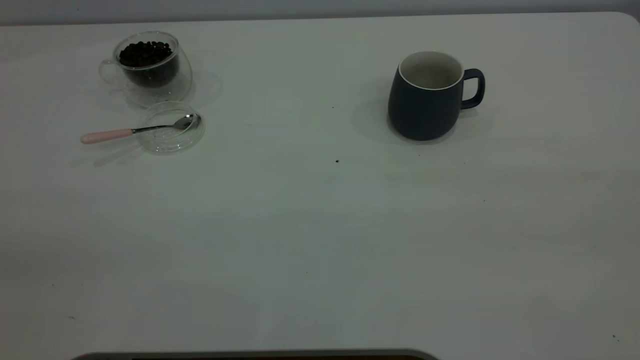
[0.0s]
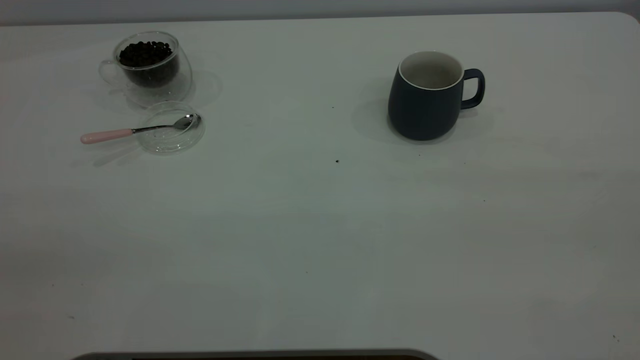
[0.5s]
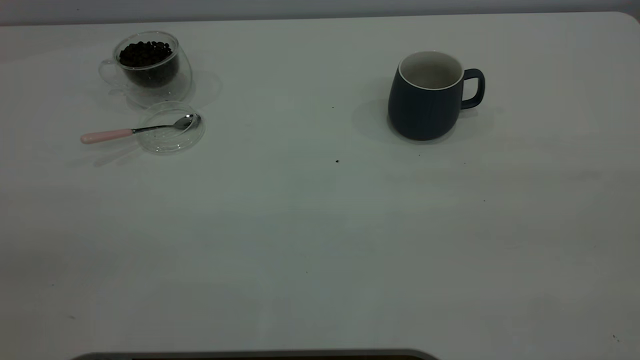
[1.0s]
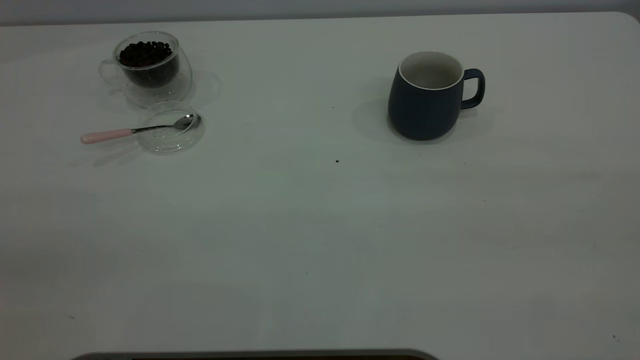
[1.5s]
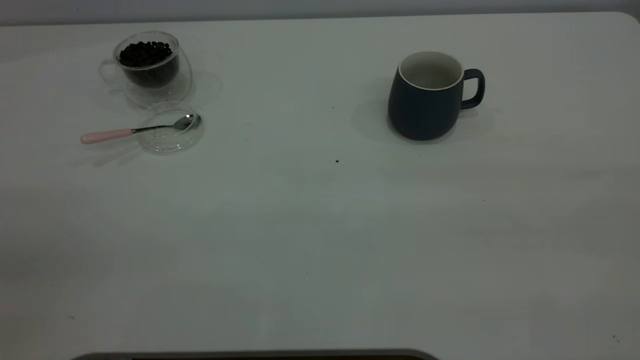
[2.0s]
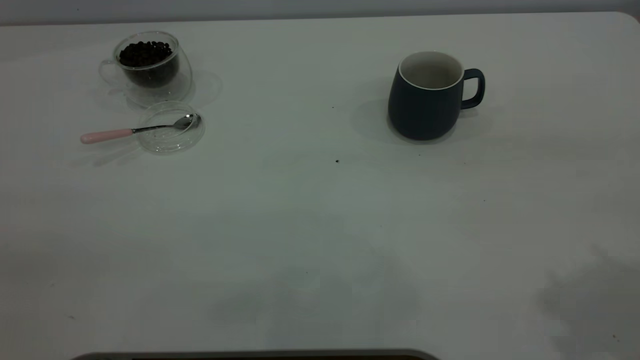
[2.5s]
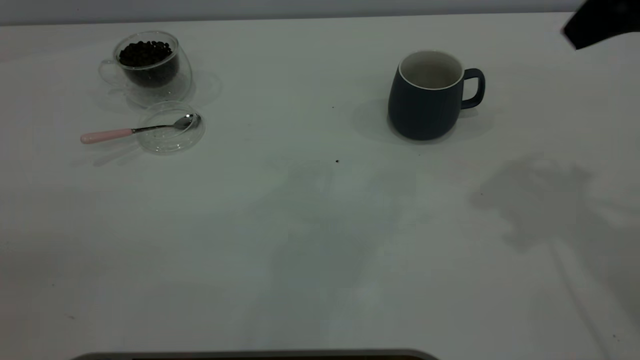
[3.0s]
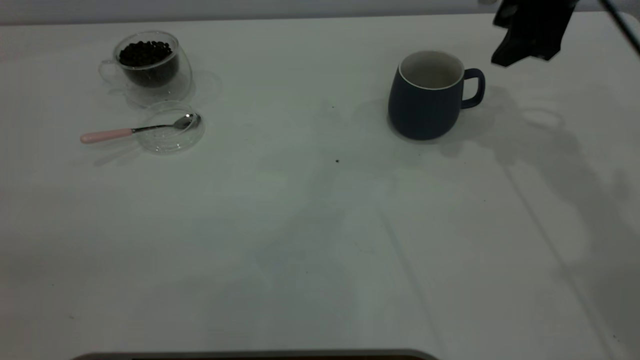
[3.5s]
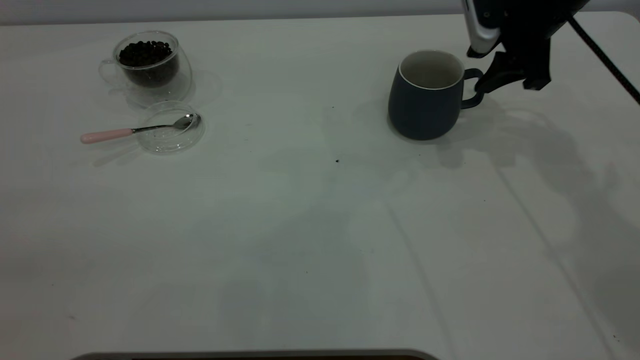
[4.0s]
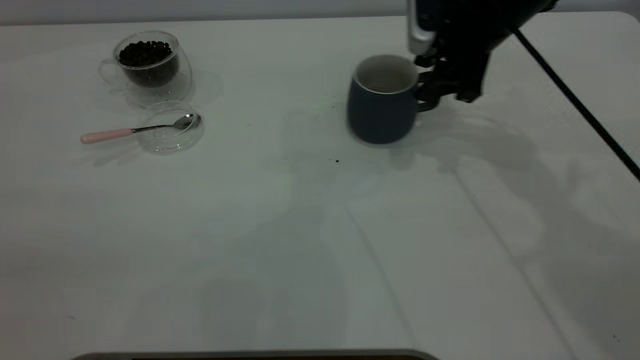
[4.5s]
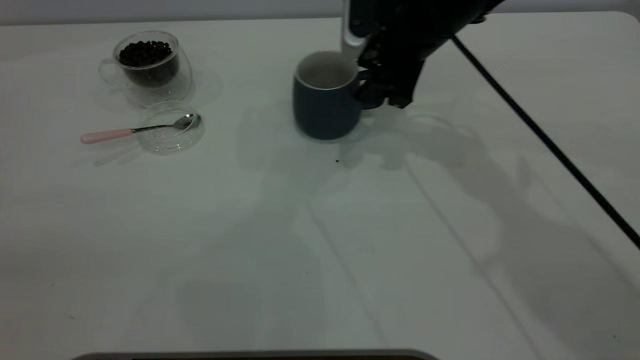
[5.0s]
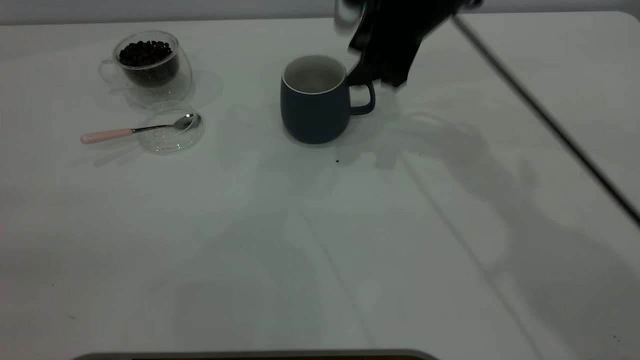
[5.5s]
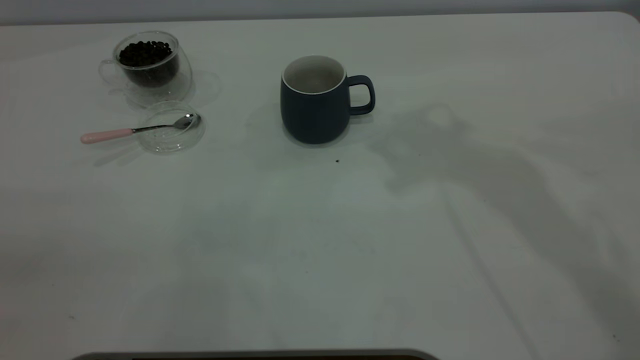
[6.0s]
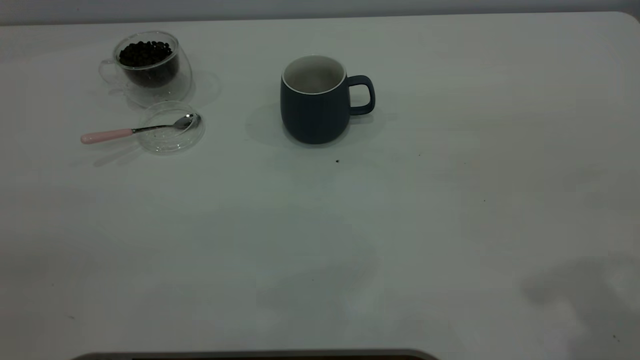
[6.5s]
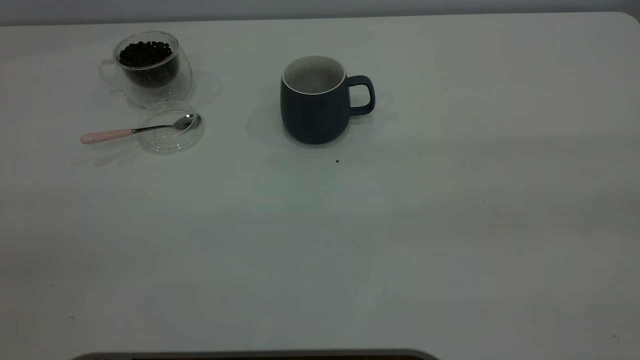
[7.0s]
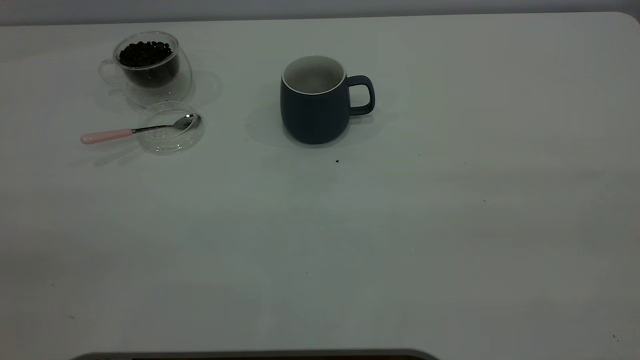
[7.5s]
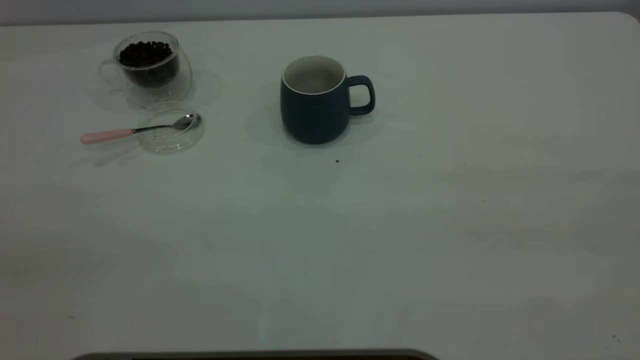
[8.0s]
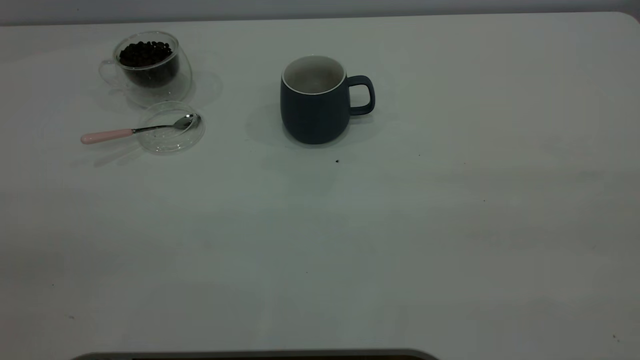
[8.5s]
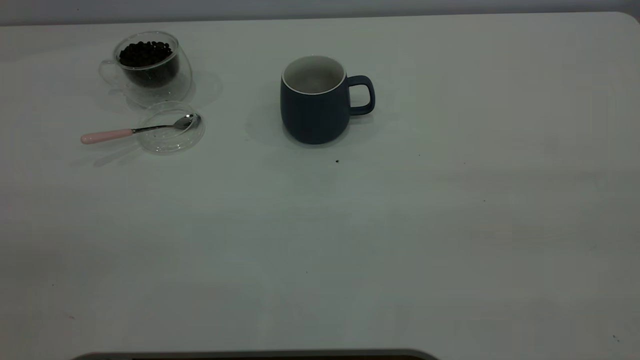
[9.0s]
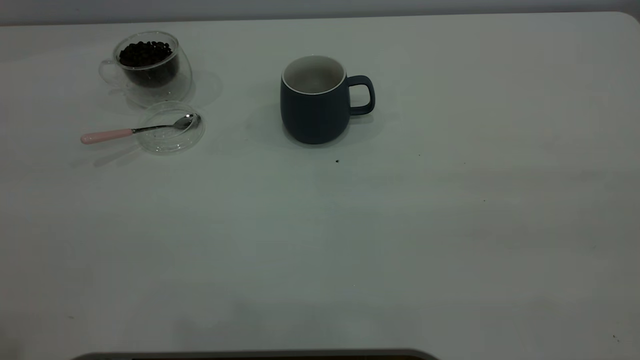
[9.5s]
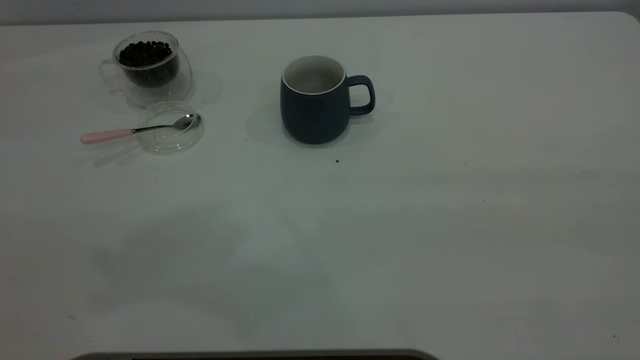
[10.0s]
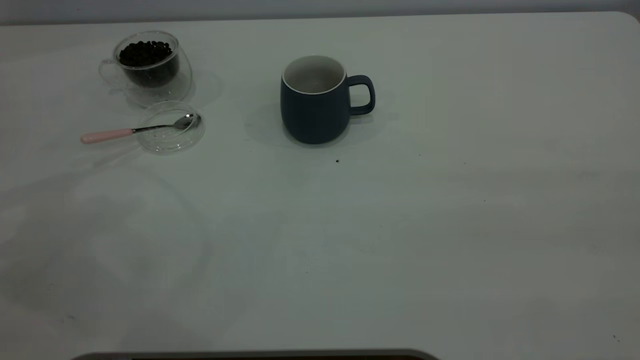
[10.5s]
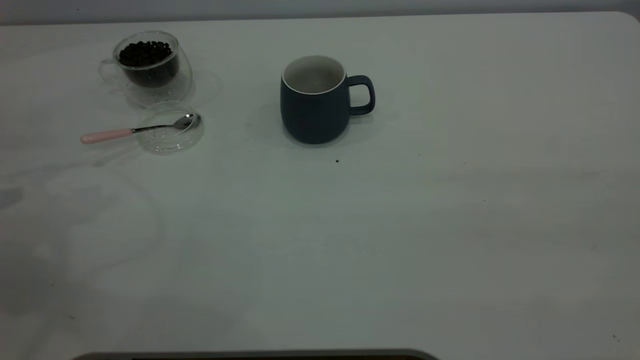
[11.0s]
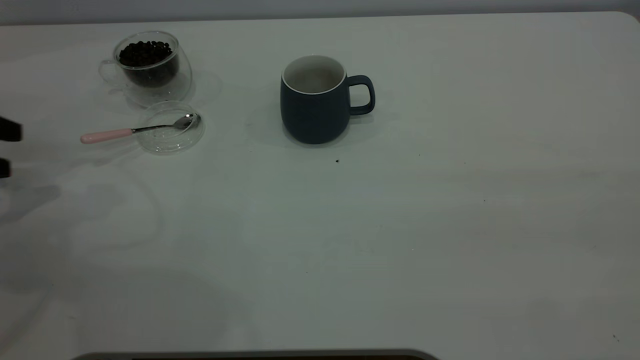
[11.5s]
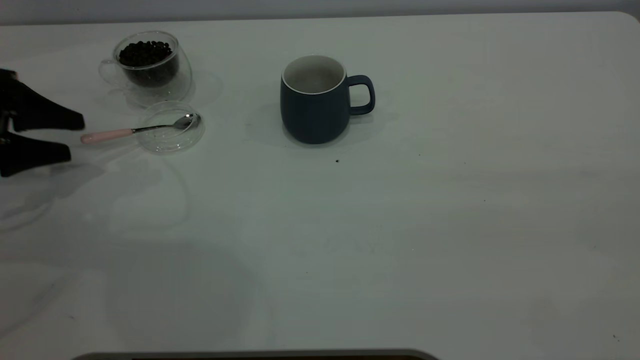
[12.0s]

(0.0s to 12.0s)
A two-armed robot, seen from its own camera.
Task of the whole recording: the right gripper place the grey cup in the center of the table, the left gripper take the pink spoon from the cup lid and scoop out the coffee beans from the coffee cup and put them into the grey cup, the left gripper put the spoon back into the cup lid.
Step, 0.0s - 5.5s: Move the cup to the center of view.
2.0s - 4.0s: The right gripper travels forward and downward by approximately 50 cm, and opens.
4.0s - 6.0s: The right gripper travels upward and backward by roughly 20 cm.
10.0s - 12.0s: The left gripper goes roughly 30 cm downward.

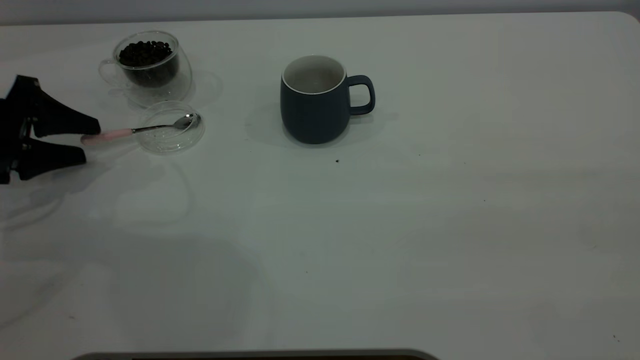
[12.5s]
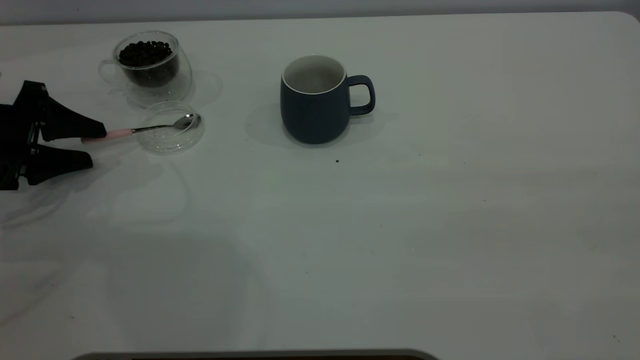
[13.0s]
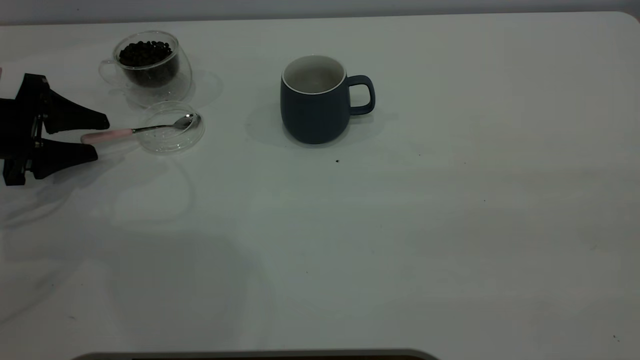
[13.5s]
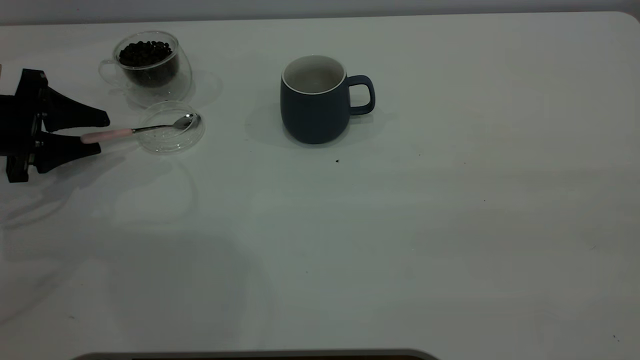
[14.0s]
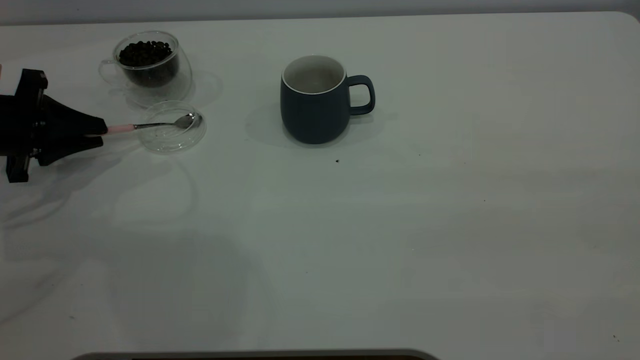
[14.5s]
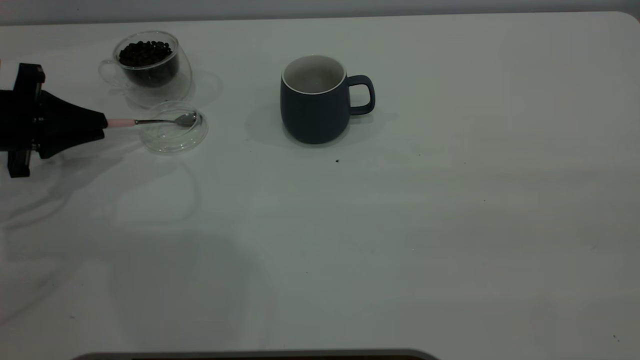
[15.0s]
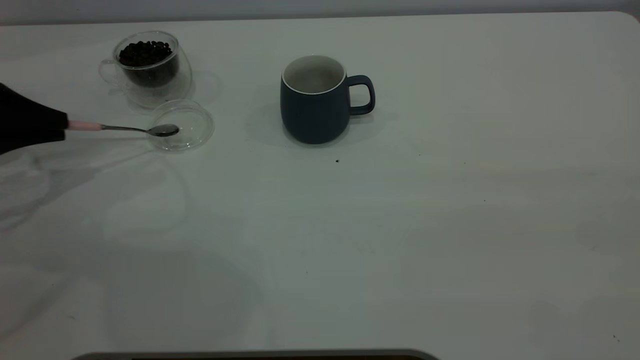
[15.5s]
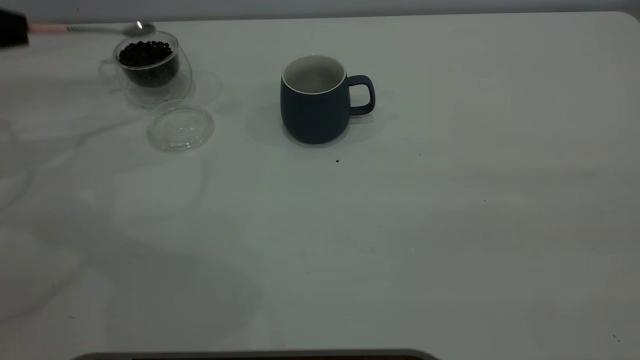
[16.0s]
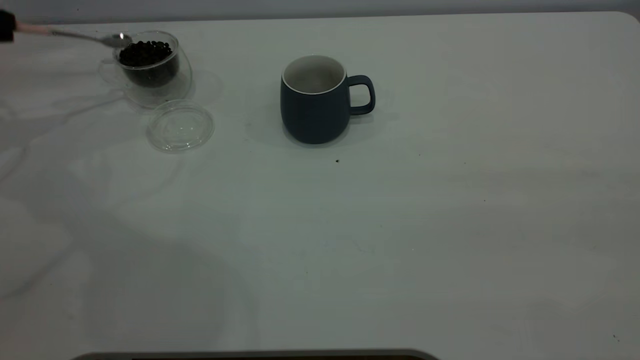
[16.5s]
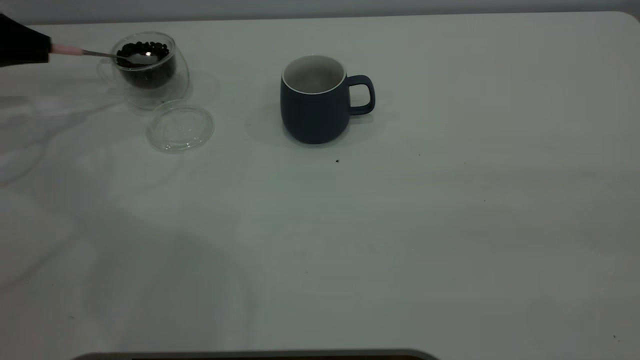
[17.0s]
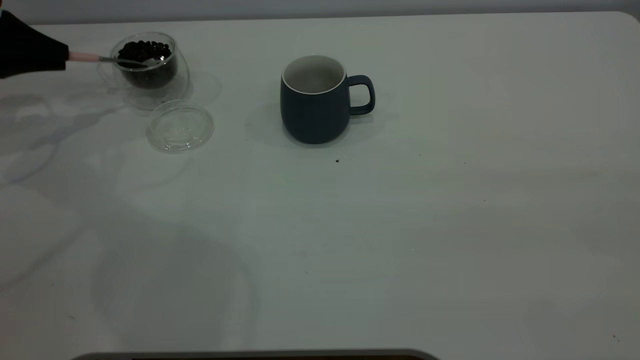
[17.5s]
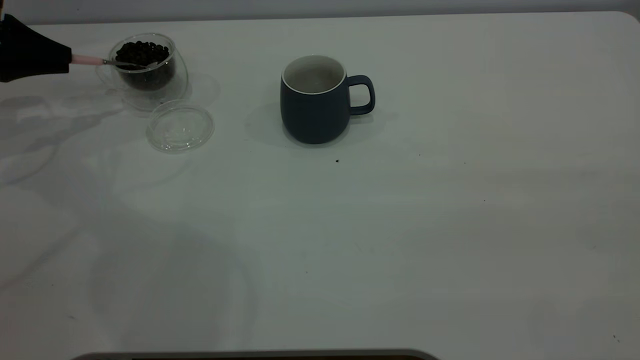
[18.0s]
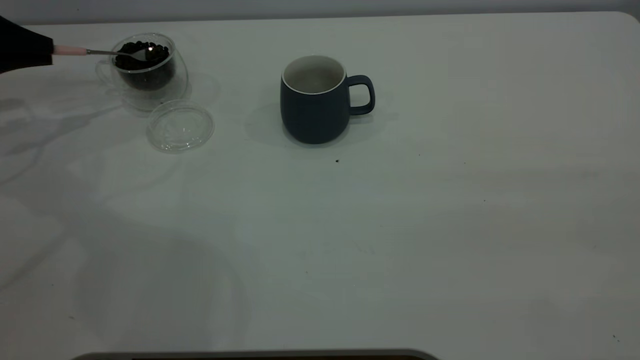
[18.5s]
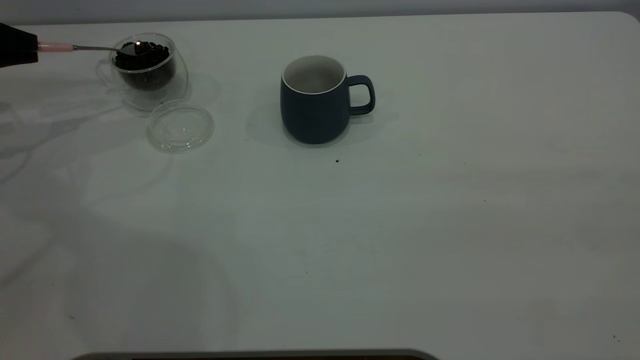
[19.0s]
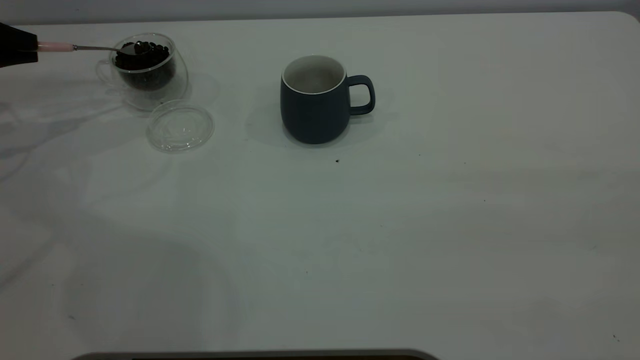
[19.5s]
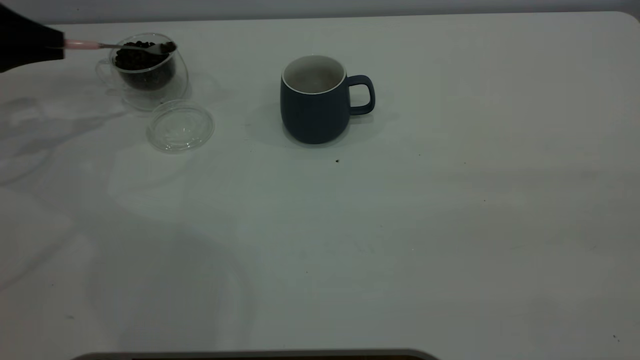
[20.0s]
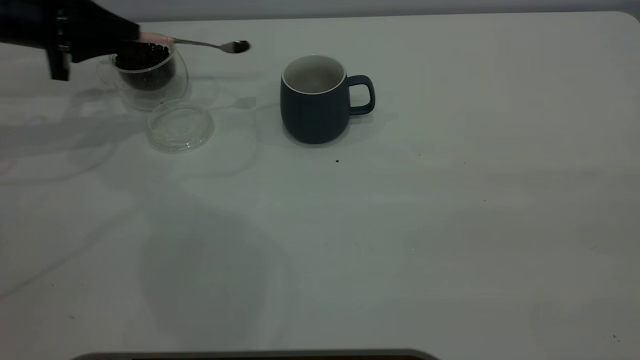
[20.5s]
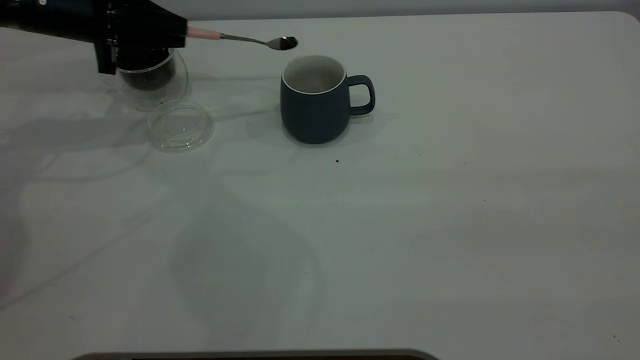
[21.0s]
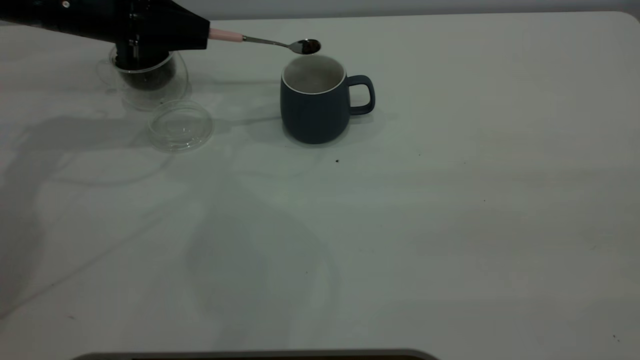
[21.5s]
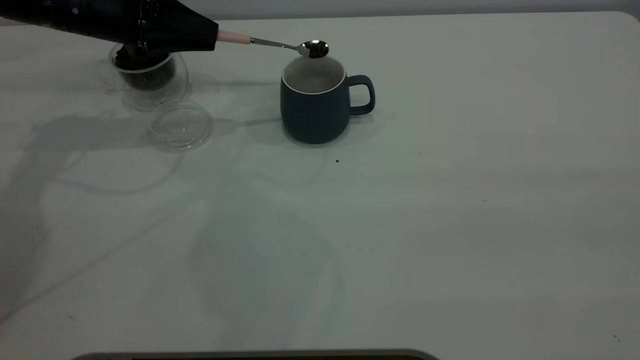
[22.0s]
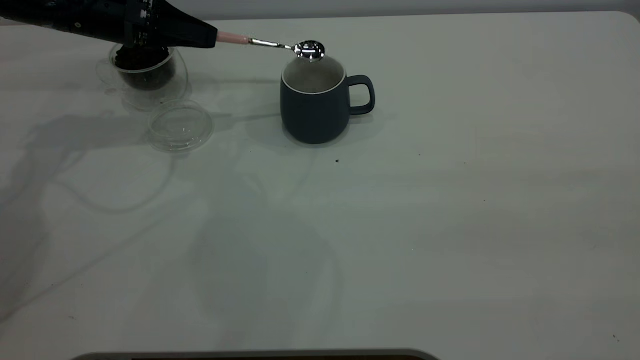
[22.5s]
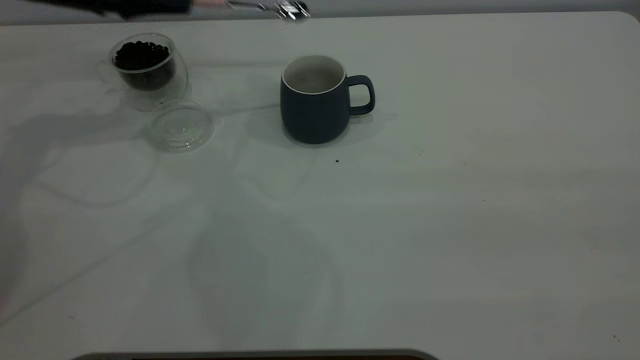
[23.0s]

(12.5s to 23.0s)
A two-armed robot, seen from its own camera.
Task of the whole recording: the right gripper place the grey cup in the center of the table, the left gripper take the pink spoon from the cup lid and scoop out the coffee beans from the coffee cup and put them into the grey cup, the left gripper put the spoon back into the cup lid.
Step, 12.5s - 15.5s: Pick up the spoon.
Step, 16.0s - 22.5s: Scoop a spoonful of beans into the cup.
12.5s - 14.5s: The left gripper closes up.
14.5s - 16.5s: The left gripper heads upward, to the left and forward, covering approximately 15 cm.
16.5s - 19.0s: The grippers stay close to where they were, moving slightly.
19.0s - 21.0s: The left gripper is displaced to the right by some 15 cm.
